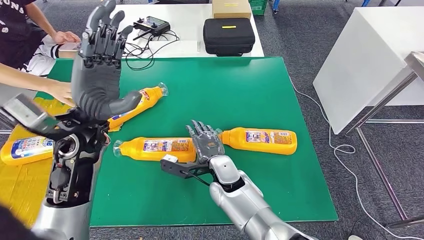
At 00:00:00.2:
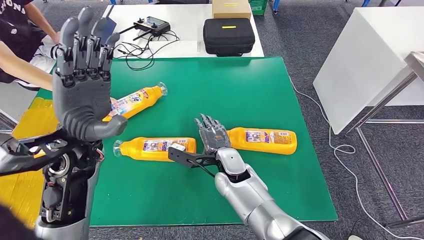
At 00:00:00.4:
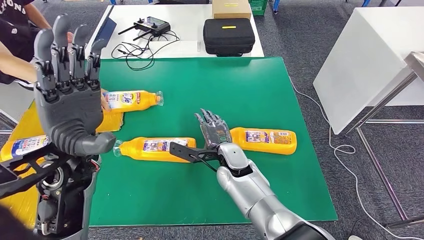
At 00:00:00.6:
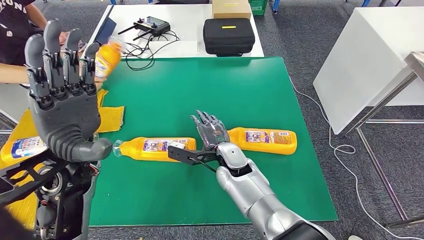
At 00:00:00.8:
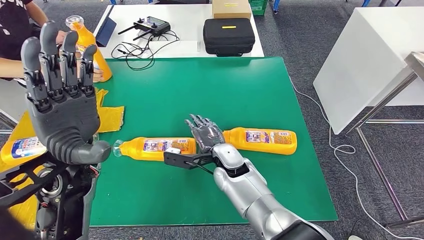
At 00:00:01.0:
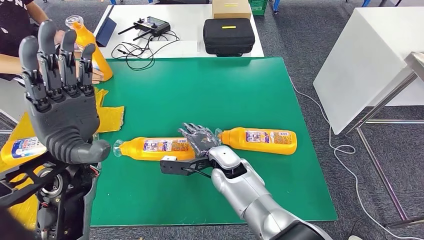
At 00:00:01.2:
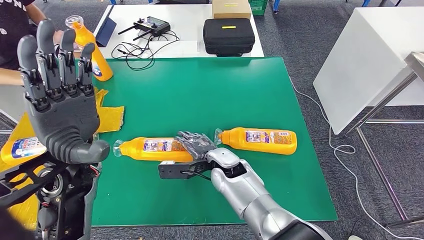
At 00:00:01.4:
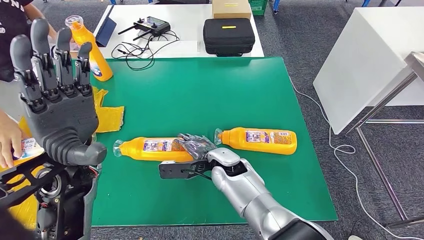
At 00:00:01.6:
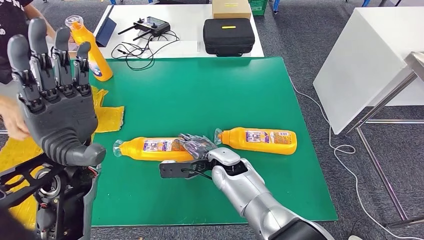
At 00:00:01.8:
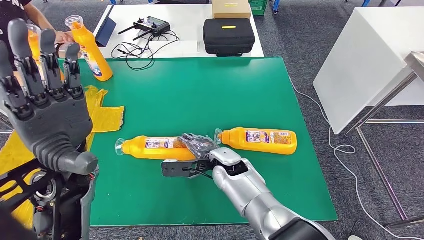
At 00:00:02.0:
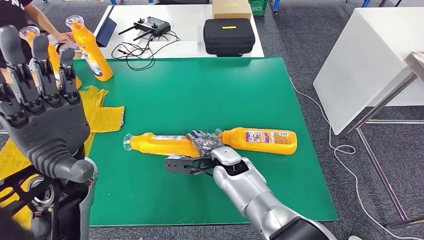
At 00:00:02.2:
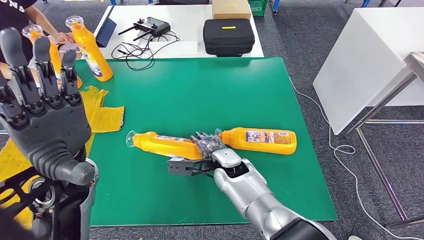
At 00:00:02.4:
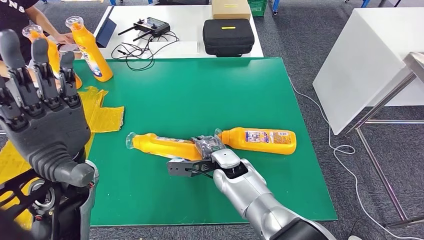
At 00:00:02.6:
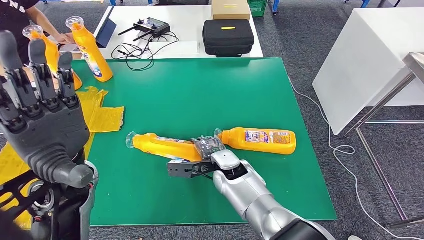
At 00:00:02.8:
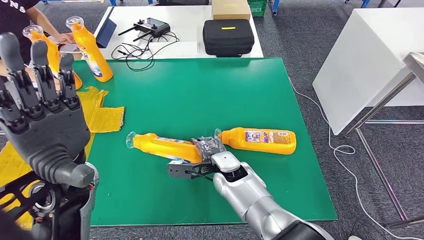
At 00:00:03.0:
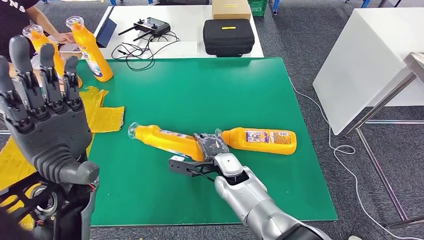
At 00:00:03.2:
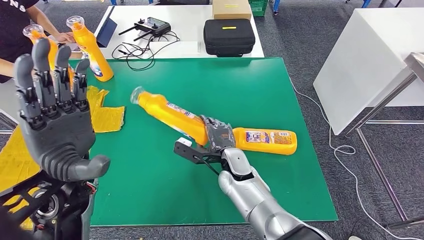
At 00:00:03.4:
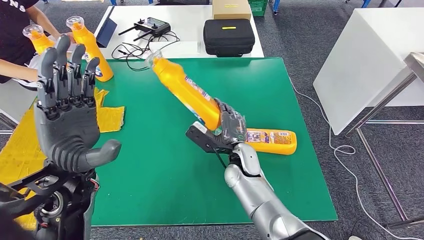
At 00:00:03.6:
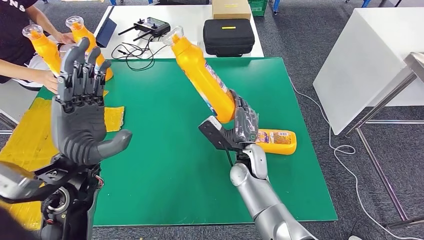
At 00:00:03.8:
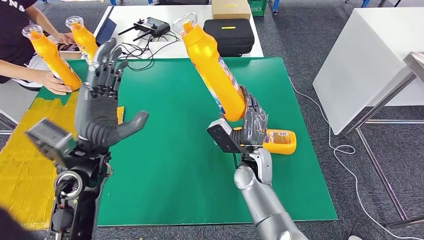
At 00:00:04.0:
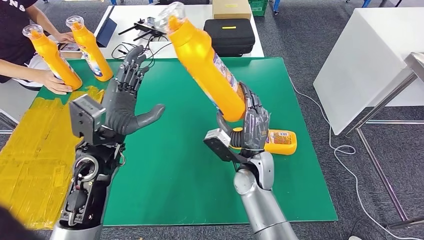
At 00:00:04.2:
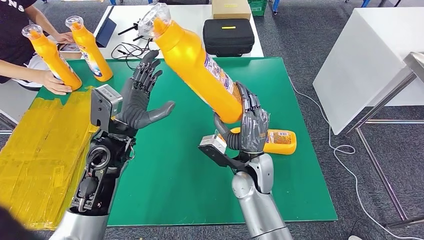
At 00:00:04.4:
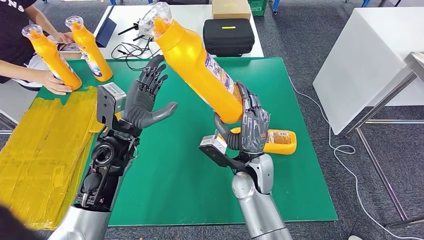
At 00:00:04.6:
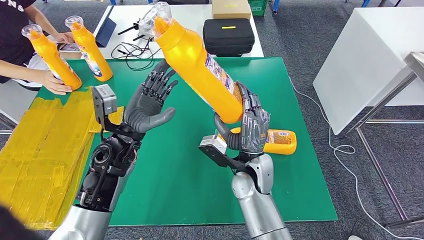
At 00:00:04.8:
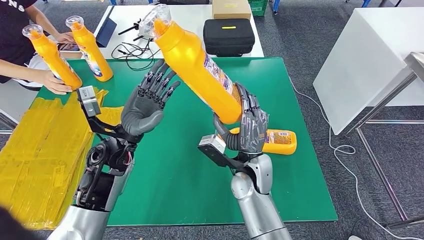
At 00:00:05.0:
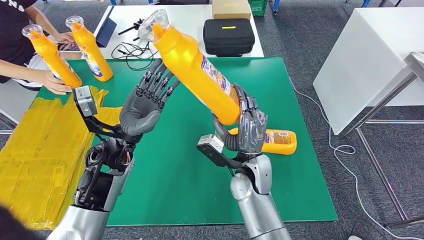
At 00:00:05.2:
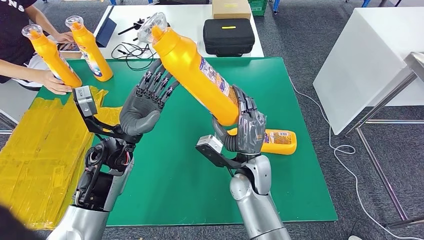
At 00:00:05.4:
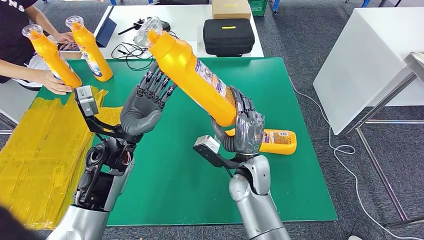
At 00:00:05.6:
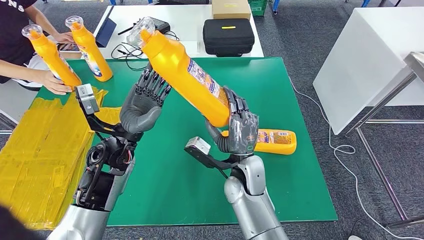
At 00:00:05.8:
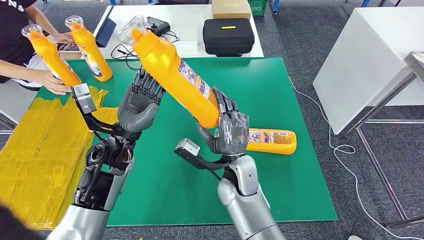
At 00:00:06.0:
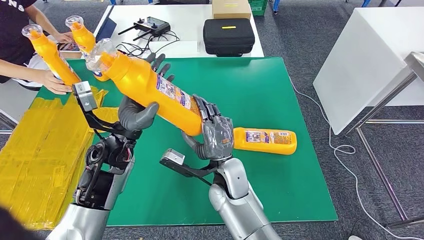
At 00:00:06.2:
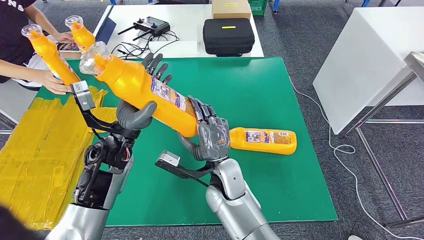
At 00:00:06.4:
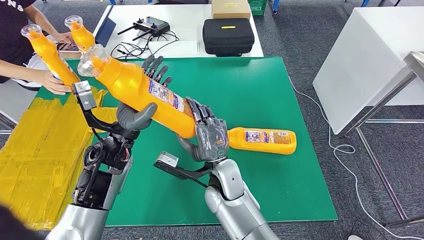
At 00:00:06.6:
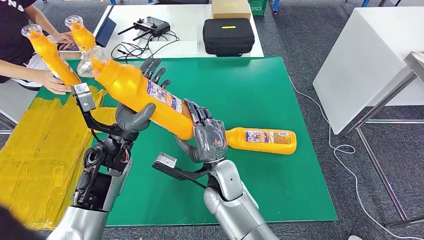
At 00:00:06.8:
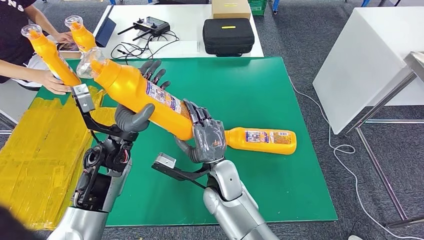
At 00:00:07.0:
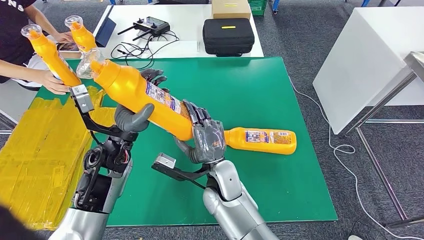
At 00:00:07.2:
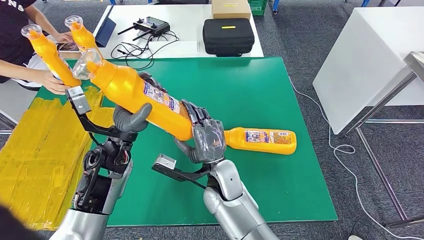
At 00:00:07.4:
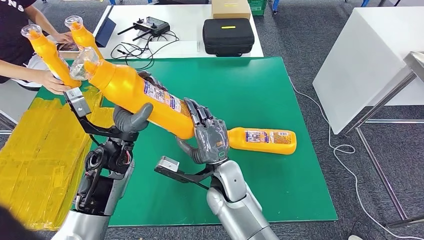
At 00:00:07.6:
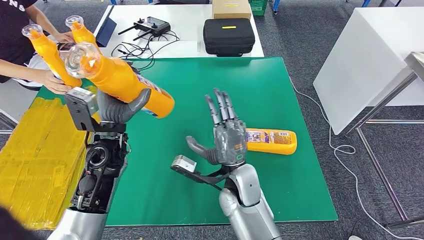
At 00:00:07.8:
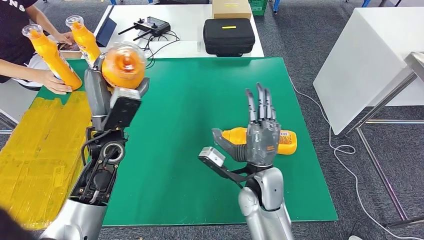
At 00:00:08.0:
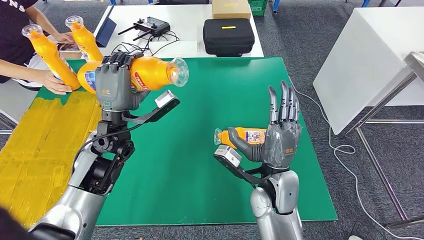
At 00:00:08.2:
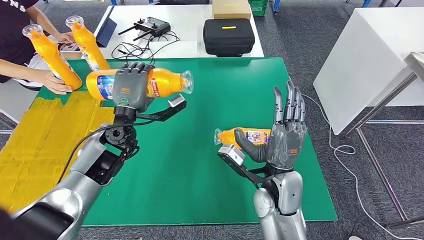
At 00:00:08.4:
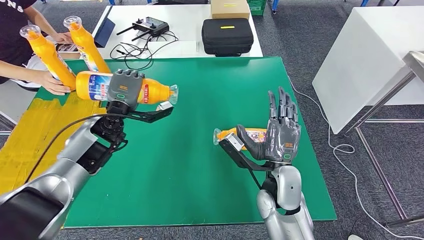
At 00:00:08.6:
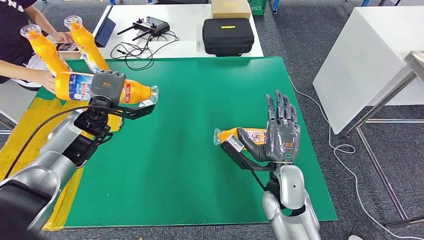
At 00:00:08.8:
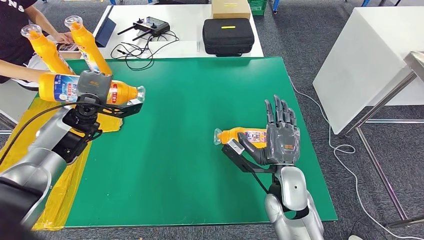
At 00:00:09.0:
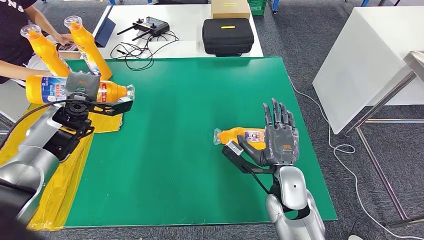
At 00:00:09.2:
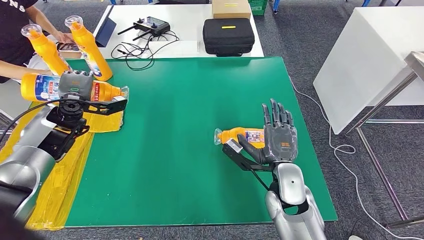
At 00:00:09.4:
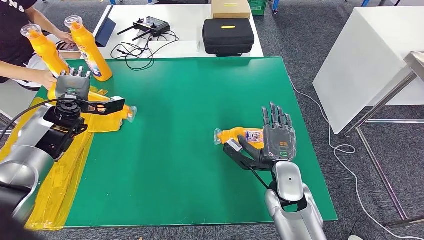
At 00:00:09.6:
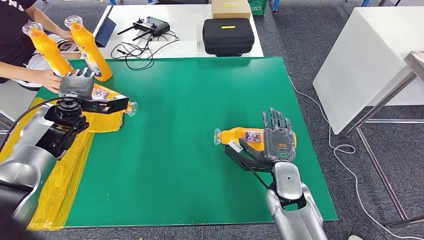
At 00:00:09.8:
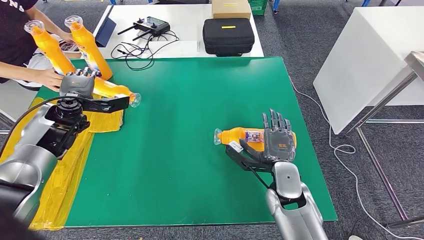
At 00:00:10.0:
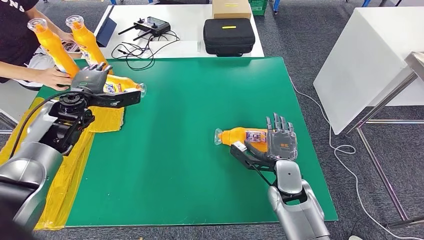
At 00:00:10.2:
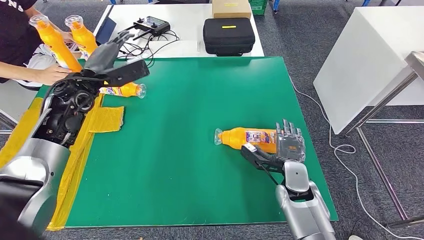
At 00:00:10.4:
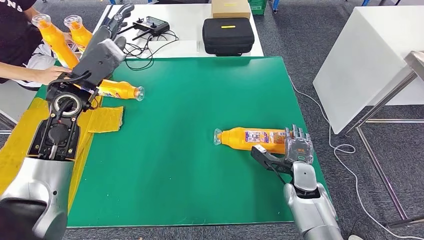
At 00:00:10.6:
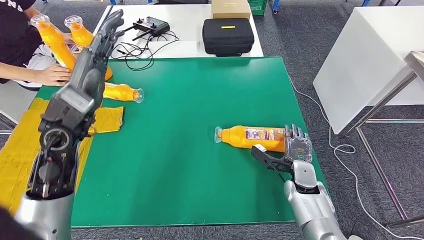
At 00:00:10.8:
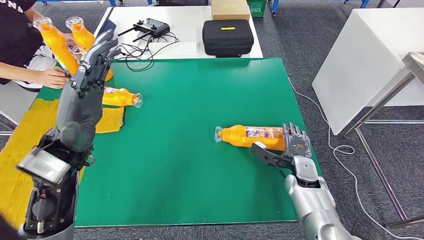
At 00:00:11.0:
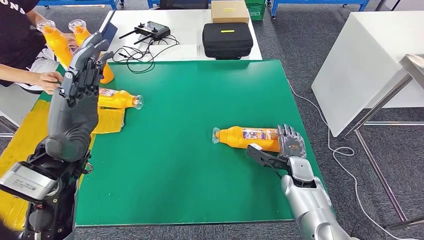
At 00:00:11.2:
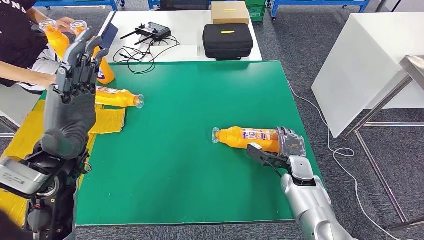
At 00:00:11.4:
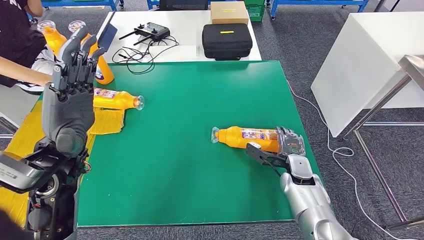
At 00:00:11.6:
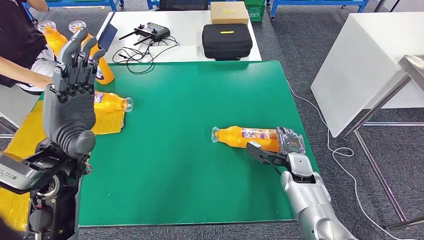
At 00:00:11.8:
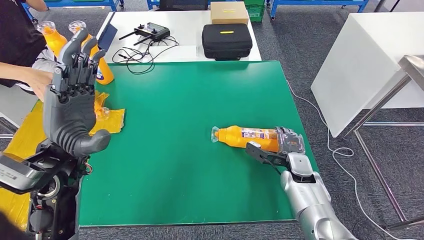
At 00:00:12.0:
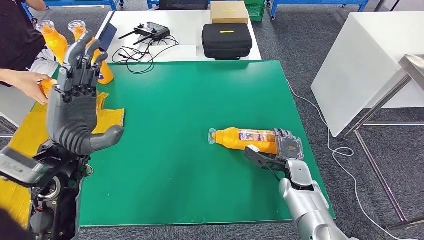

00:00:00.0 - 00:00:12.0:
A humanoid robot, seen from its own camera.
Step, 00:00:01.6 - 00:00:04.4: Pick up the fast-moving consumer goods bottle from the table.
Step, 00:00:06.2 - 00:00:09.6: Flip the fast-moving consumer goods bottle to the front side.
00:00:09.0 - 00:00:10.4: The left hand heads to the right and upward, covering about 10 cm; the right hand goes approximately 10 cm to the right and downward.

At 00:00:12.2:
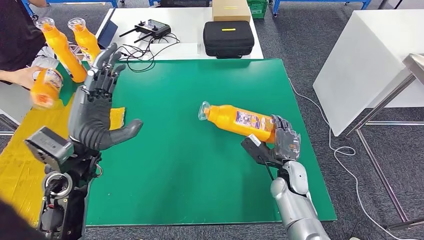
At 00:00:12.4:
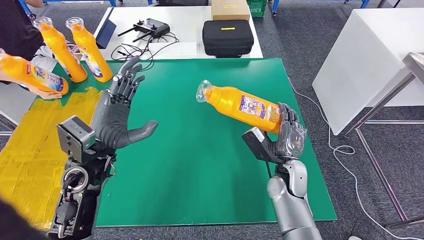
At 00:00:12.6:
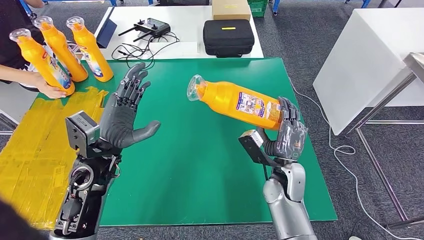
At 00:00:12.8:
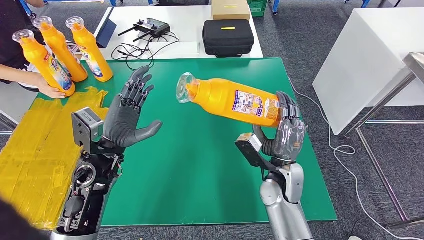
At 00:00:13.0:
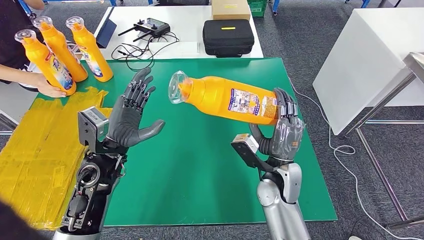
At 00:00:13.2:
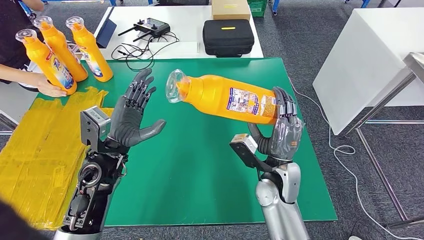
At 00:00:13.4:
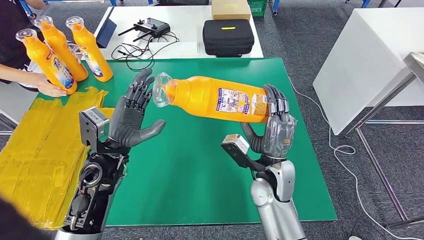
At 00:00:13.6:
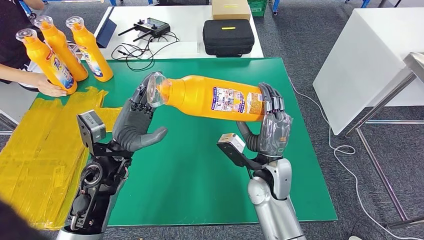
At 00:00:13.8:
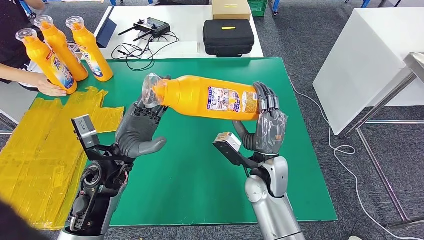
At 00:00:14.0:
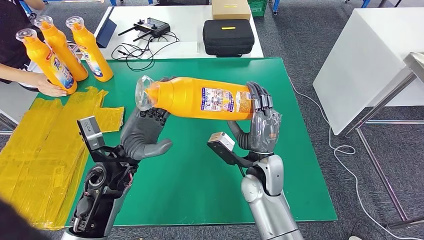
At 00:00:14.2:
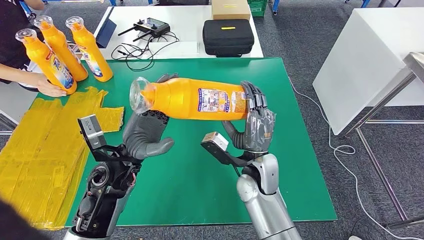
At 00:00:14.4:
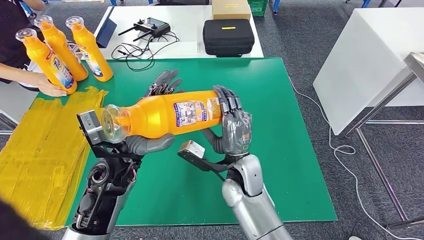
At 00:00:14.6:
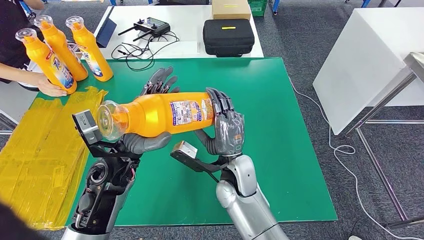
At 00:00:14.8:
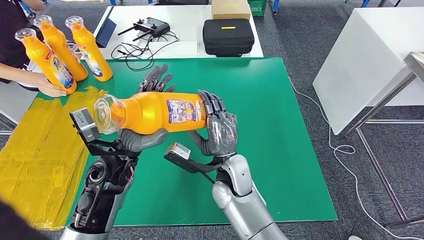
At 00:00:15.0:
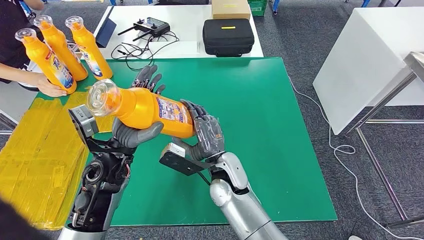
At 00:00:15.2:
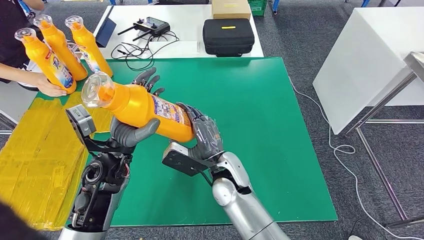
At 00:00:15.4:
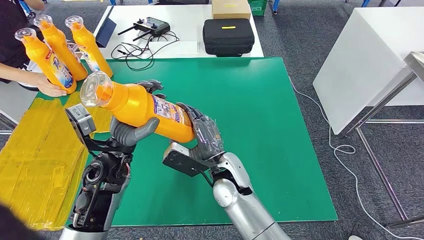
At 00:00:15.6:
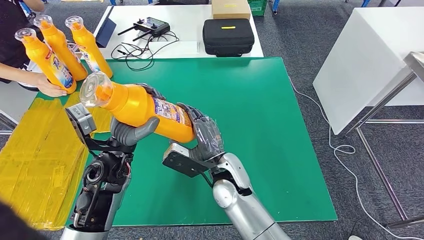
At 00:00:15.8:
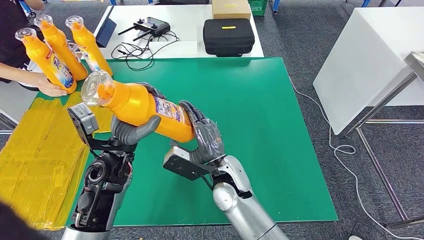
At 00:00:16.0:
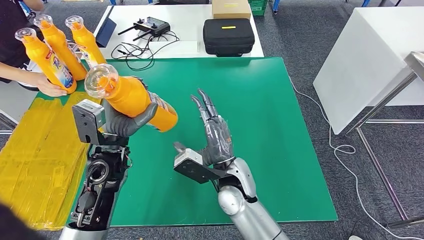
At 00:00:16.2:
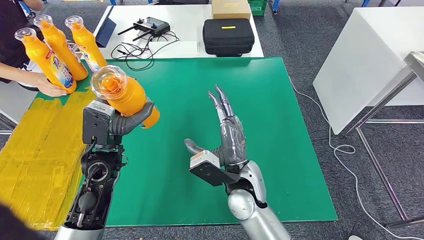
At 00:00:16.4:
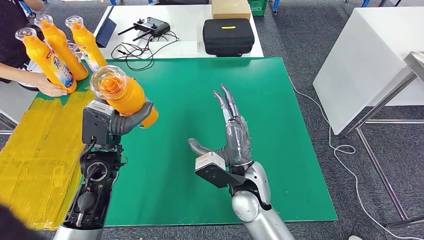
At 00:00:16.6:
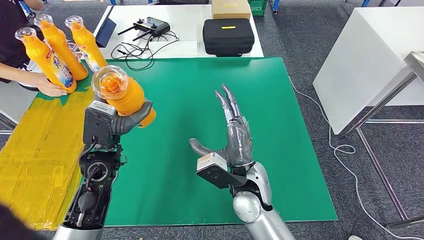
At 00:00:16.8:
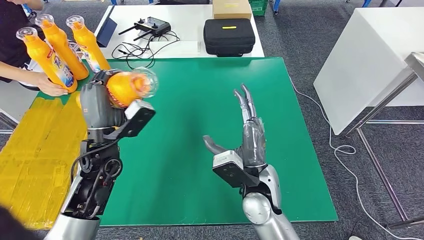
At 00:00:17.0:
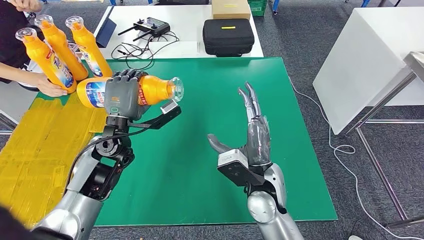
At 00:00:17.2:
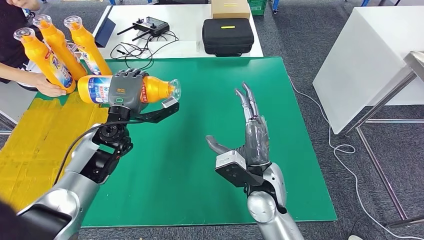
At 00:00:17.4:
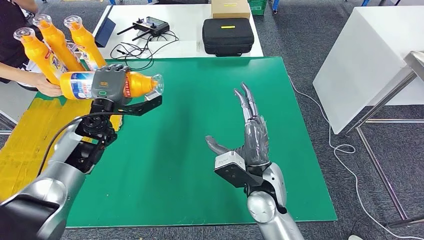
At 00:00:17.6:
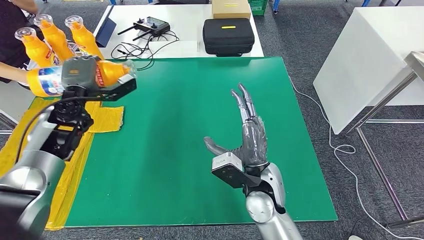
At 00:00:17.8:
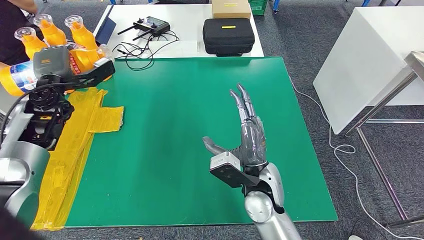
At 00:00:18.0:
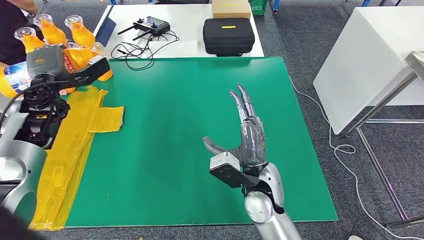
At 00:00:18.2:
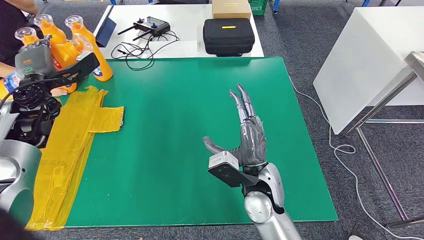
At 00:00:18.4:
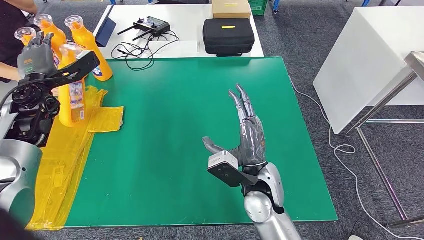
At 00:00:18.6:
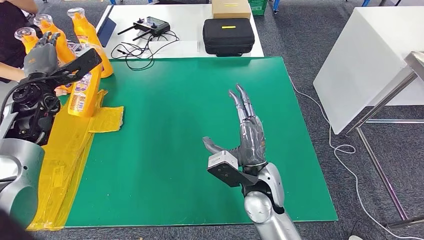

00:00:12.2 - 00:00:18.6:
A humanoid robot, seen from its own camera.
Step, 00:00:14.0 - 00:00:18.6: Flip the fast-moving consumer goods bottle to the front side.
00:00:15.4 - 00:00:17.0: The right hand travels to the right by about 5 cm. The left hand heads forward, covering approximately 5 cm.
